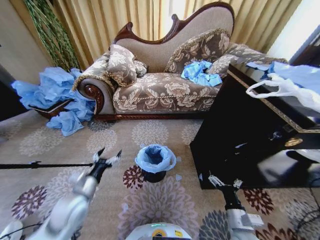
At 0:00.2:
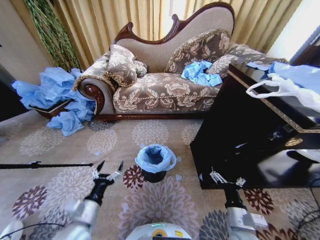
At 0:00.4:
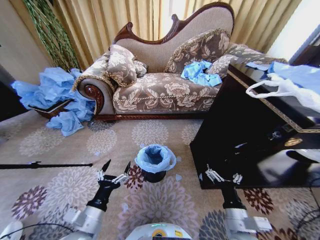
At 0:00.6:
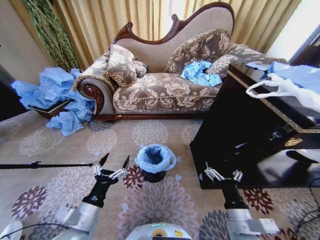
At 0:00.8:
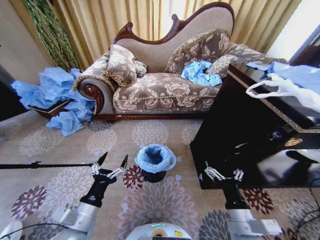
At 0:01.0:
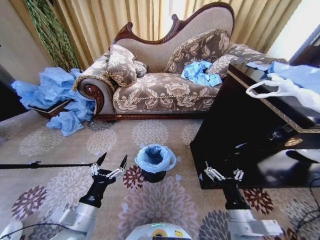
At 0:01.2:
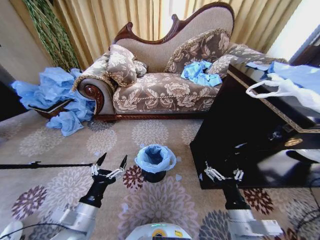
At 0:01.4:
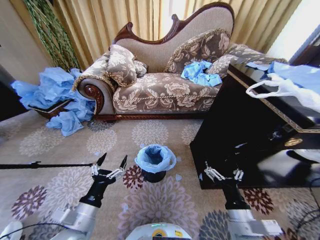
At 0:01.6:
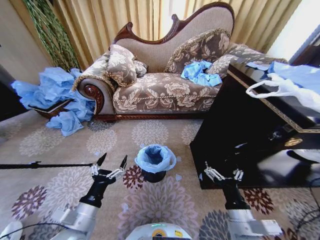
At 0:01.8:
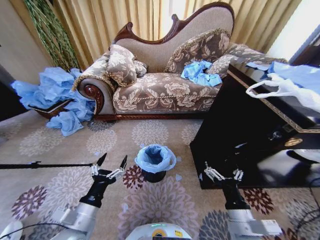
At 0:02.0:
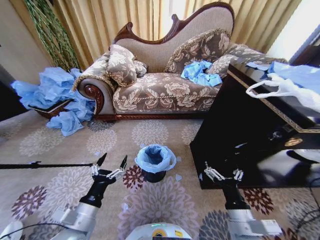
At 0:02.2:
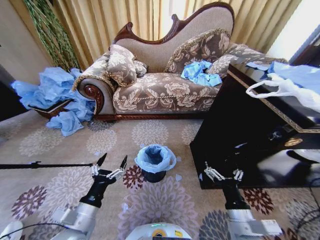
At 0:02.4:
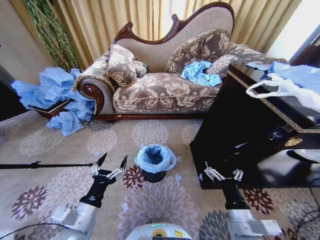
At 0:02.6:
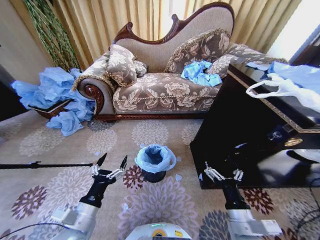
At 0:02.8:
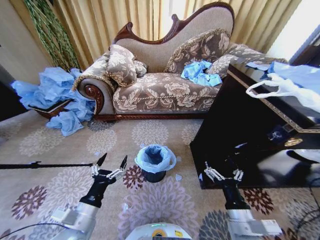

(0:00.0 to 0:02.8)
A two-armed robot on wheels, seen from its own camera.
Task of the whole recording: Place a garbage bag over the trash bin.
0:00.0 - 0:01.4: The right gripper is displaced upward by approximately 10 cm; the left gripper travels backward and to the right by roughly 10 cm.
0:01.4 - 0:02.8: Both grippers stay about where they are.
